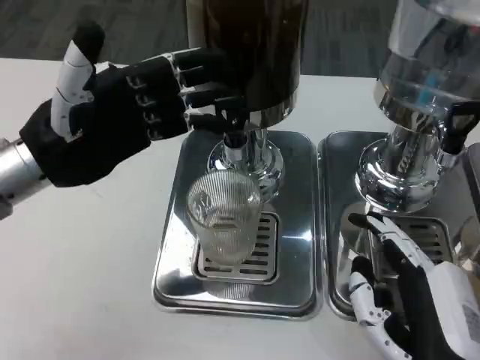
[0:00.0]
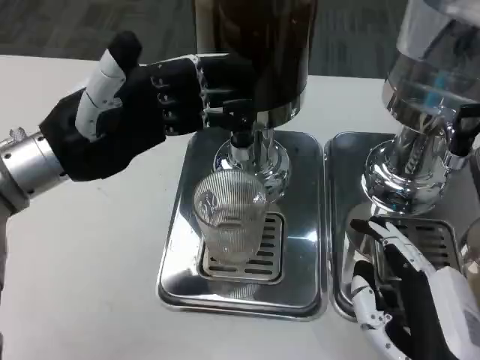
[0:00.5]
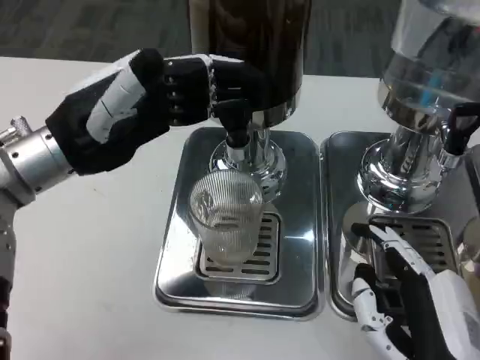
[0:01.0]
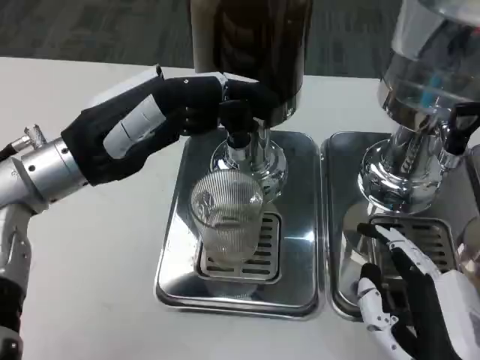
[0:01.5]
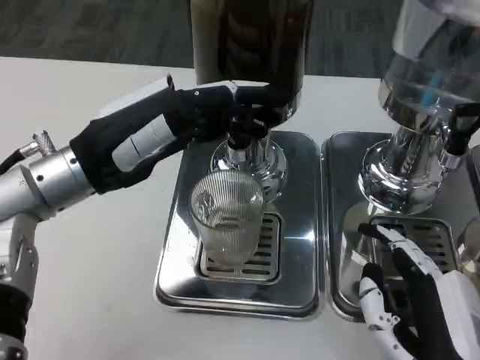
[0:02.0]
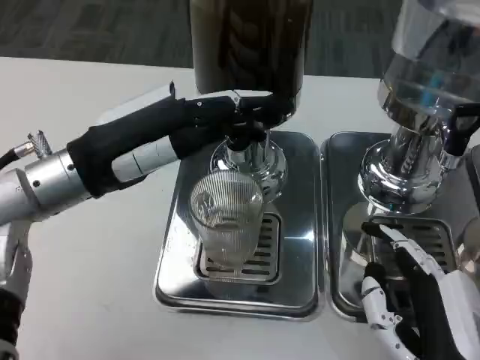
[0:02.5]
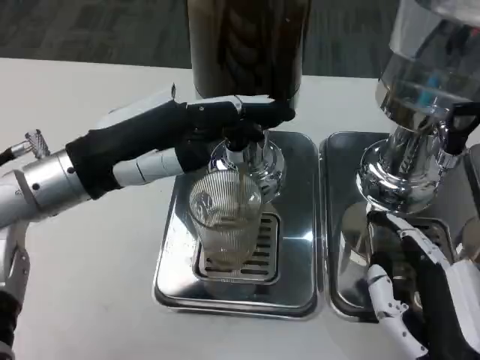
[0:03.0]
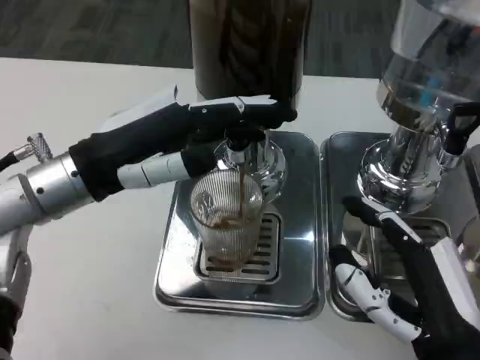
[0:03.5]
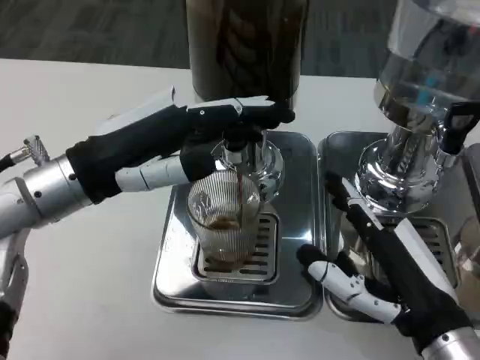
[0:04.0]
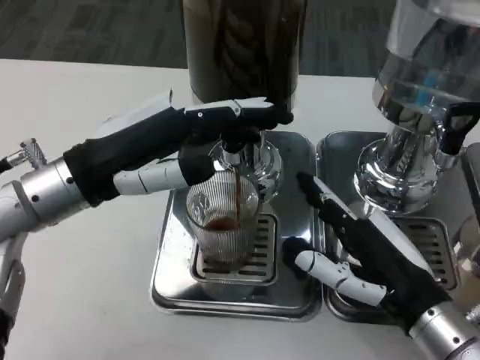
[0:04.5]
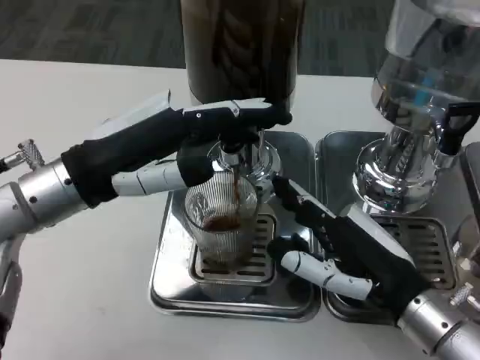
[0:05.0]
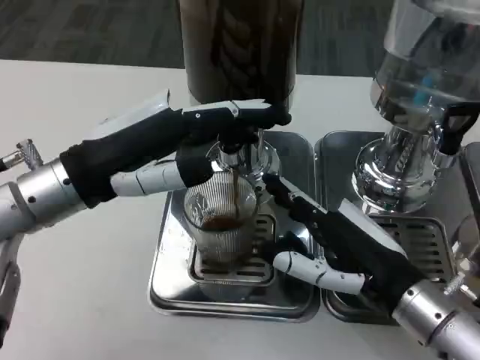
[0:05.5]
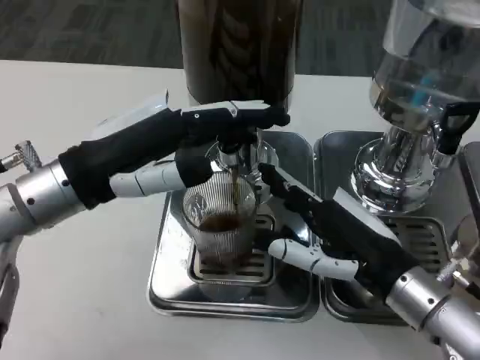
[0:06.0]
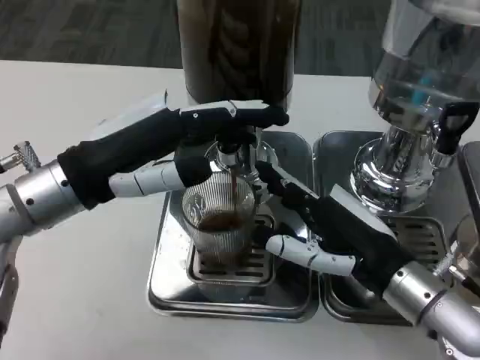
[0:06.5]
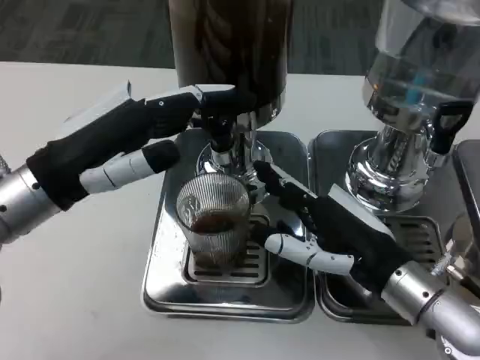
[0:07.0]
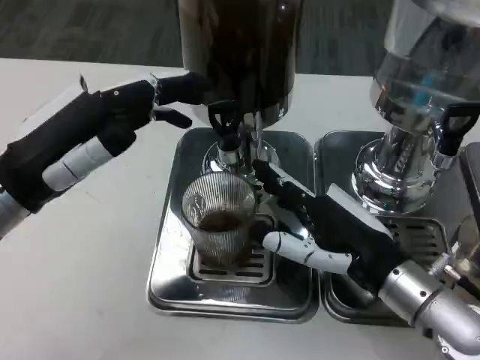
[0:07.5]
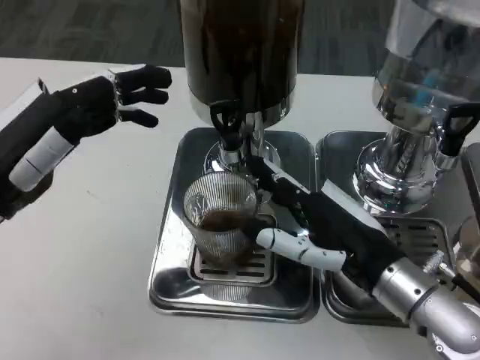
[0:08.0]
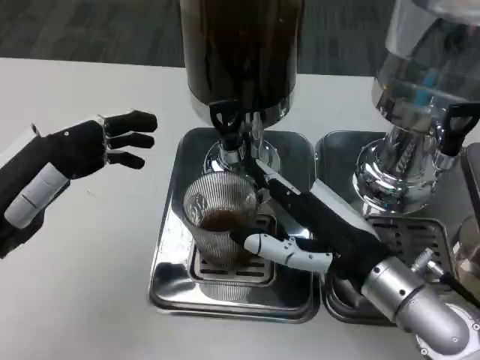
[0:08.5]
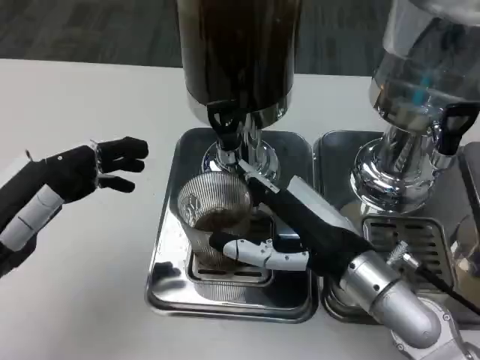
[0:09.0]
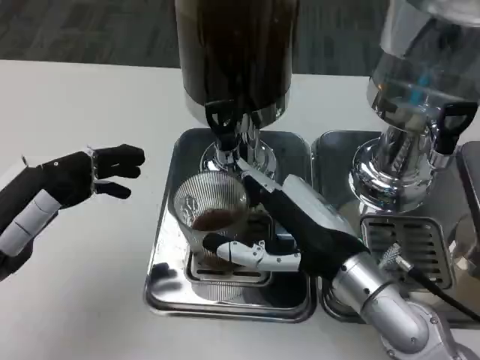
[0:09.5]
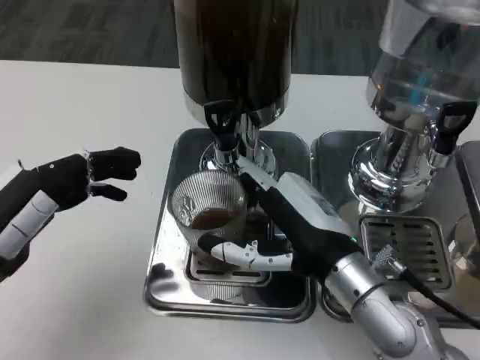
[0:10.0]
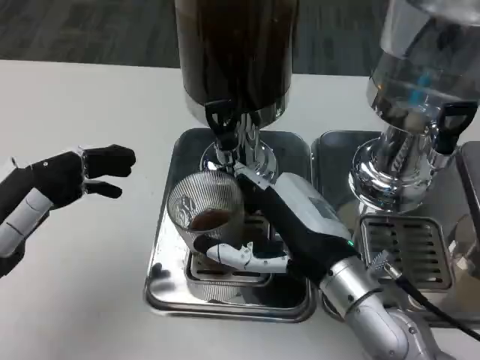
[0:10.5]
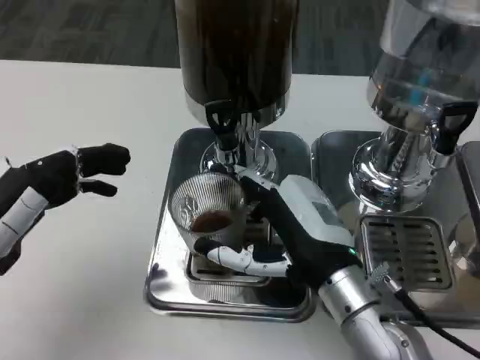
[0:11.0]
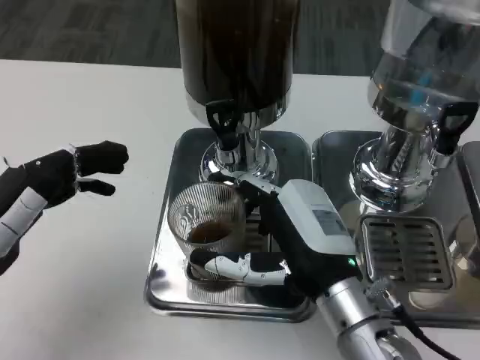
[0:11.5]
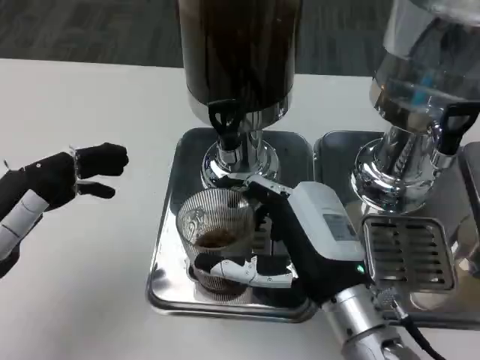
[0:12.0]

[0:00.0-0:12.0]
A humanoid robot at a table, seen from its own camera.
Task of the whole recording: Grasp the cup under the faucet to collect the drink, then remove the cup.
0:02.0 to 0:04.0: The right hand travels forward by about 5 cm.
0:04.0 to 0:06.0: The right hand moves forward, roughly 5 cm.
0:06.0 to 0:08.0: The left hand heads to the left, covering about 5 cm.
0:08.0 to 0:10.0: The left hand changes place by approximately 5 cm; the right hand goes roughly 5 cm to the left.

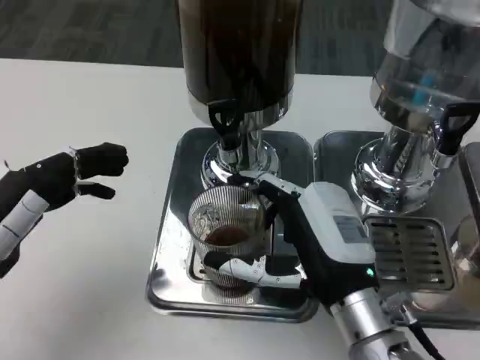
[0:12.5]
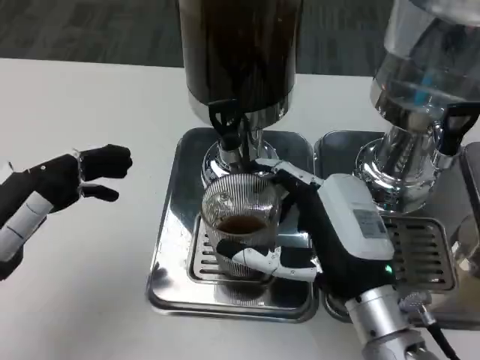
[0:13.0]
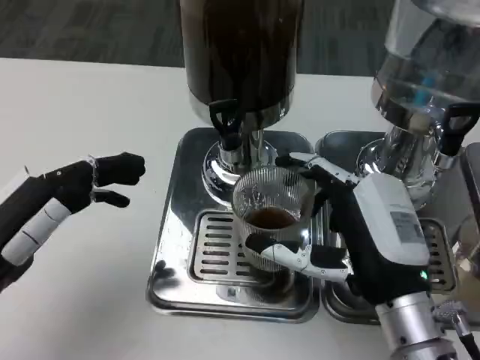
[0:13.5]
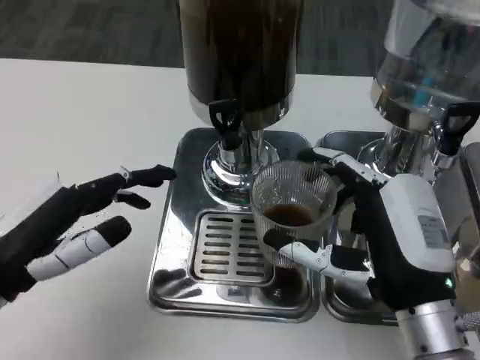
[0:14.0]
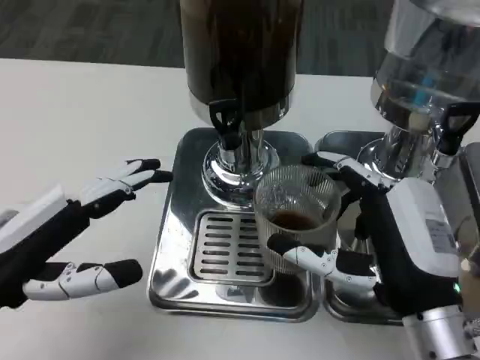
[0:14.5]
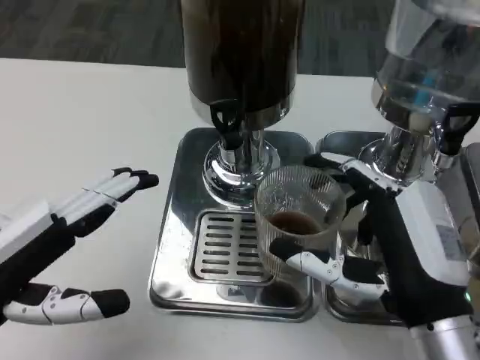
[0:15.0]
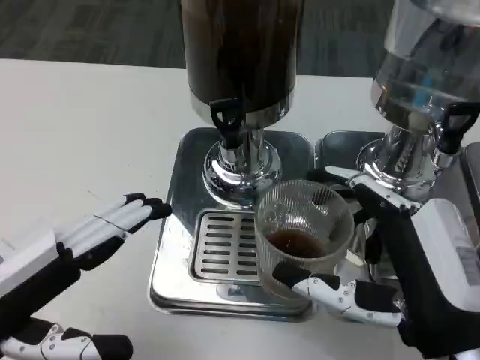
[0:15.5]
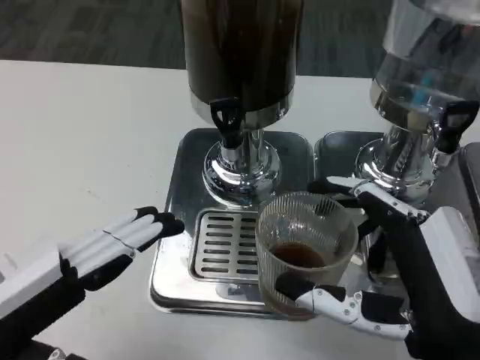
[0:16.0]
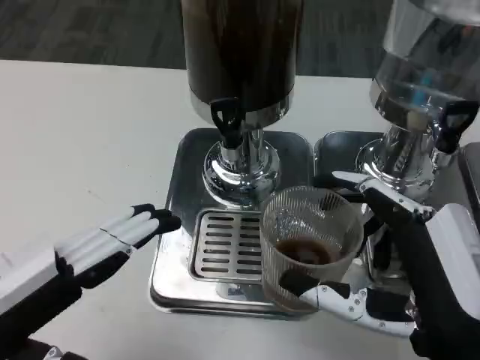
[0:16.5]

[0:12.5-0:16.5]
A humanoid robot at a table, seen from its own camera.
Task of the whole recording: Grasp the cup under the faucet to collect the drink, then remove the cup.
0:12.5 to 0:14.5: The right hand shifts by some 5 cm.
0:14.5 to 0:16.5: Both hands travel together backward, about 5 cm.

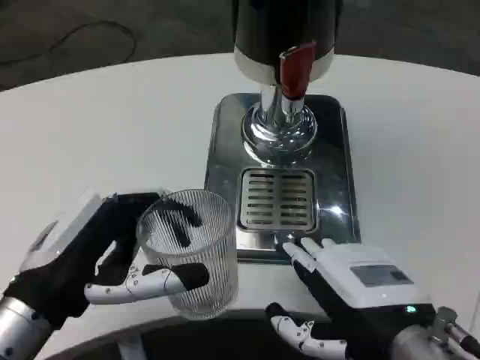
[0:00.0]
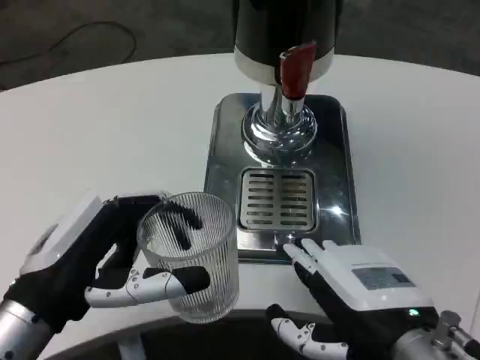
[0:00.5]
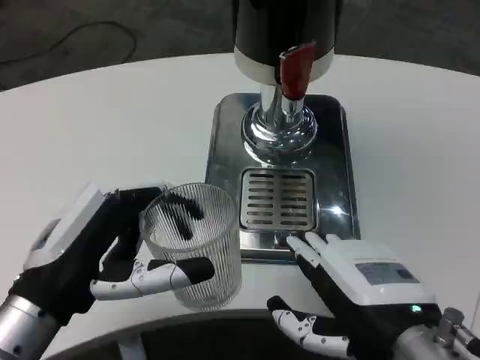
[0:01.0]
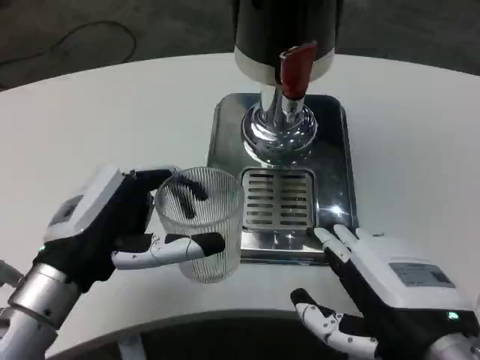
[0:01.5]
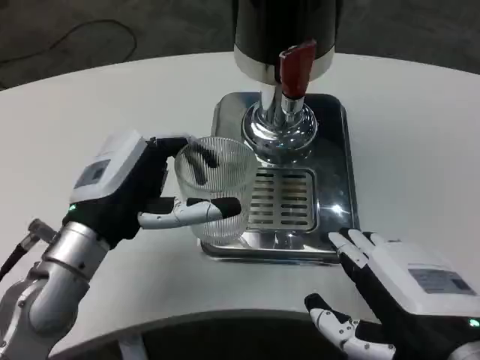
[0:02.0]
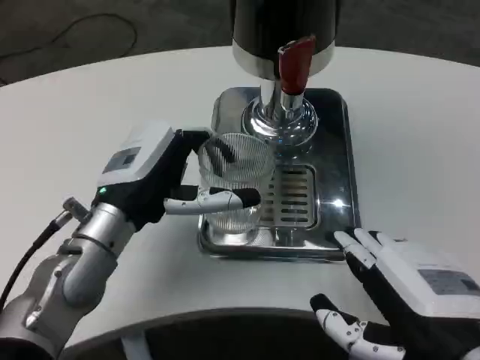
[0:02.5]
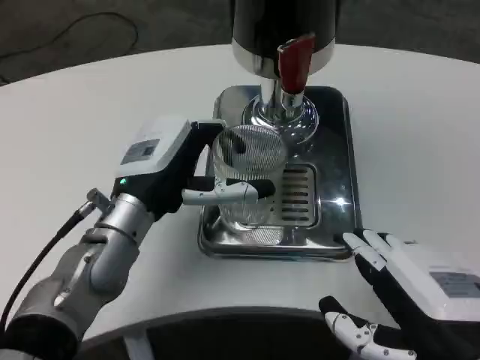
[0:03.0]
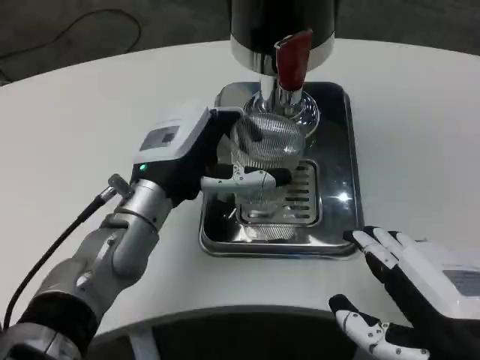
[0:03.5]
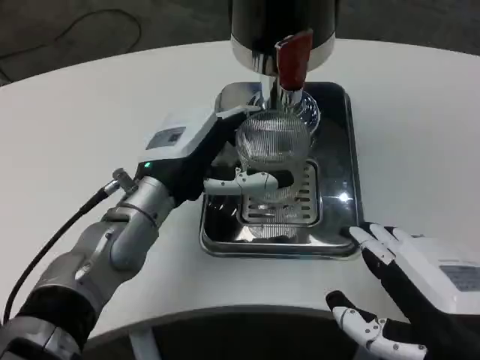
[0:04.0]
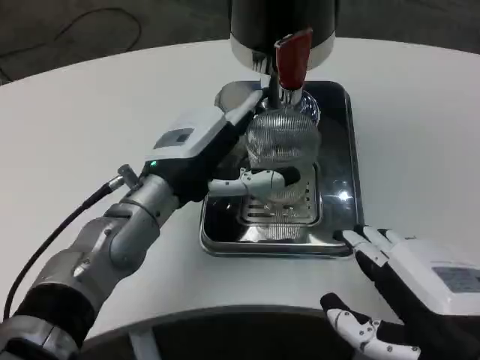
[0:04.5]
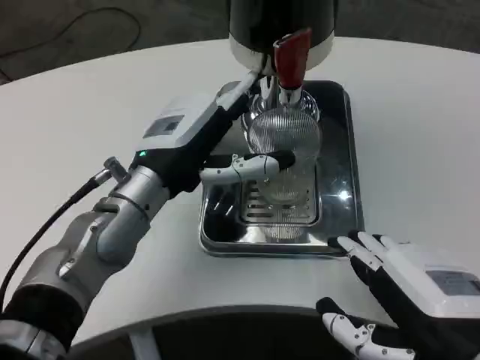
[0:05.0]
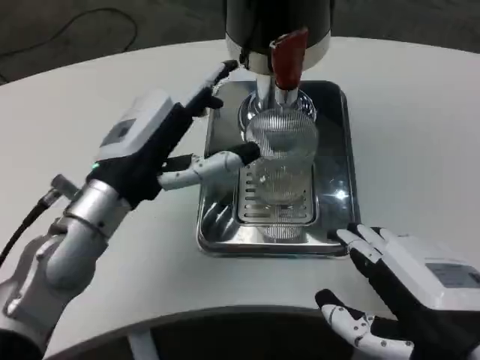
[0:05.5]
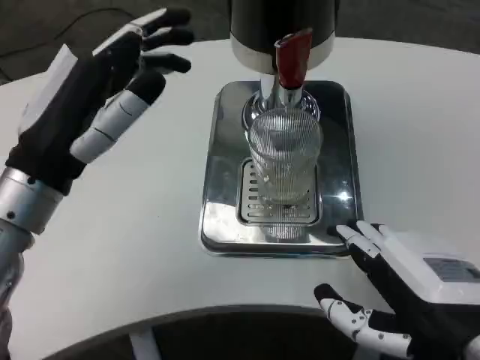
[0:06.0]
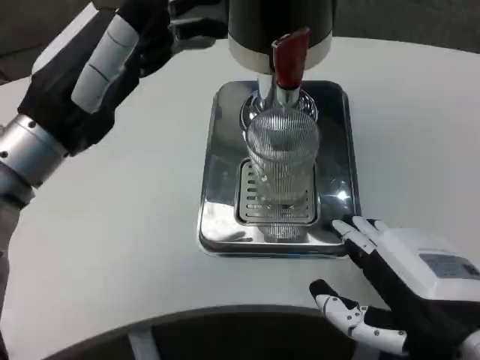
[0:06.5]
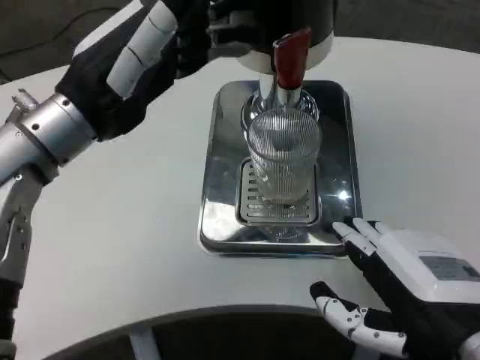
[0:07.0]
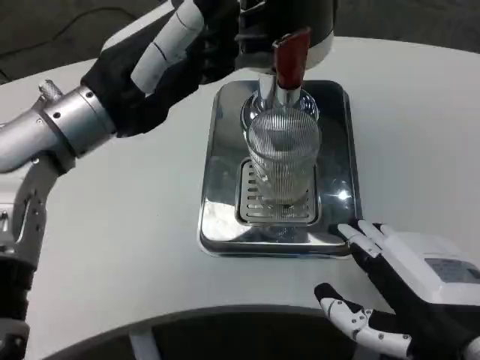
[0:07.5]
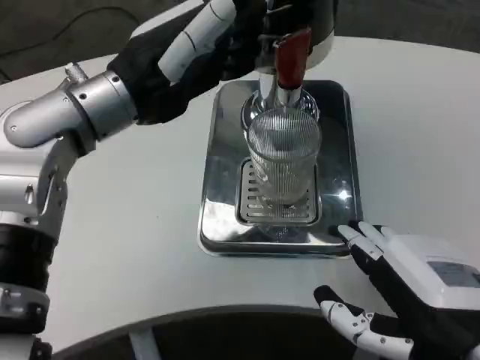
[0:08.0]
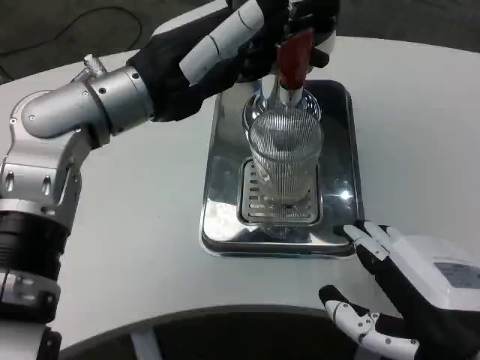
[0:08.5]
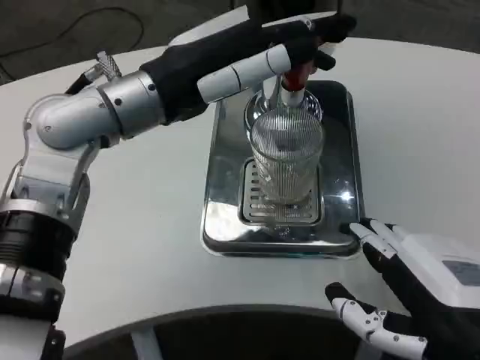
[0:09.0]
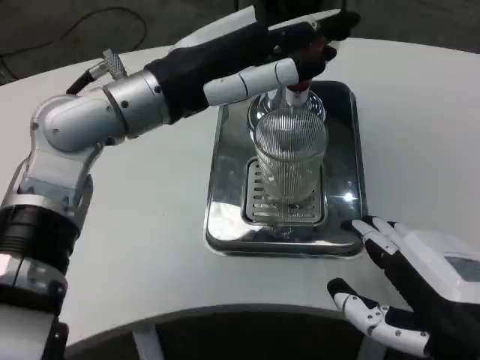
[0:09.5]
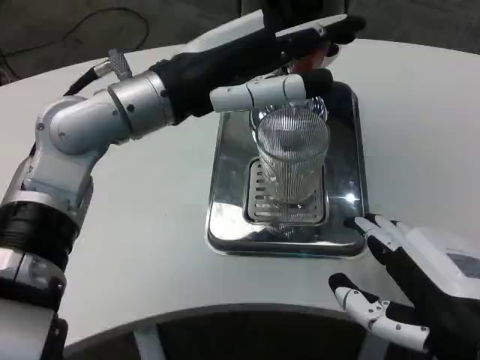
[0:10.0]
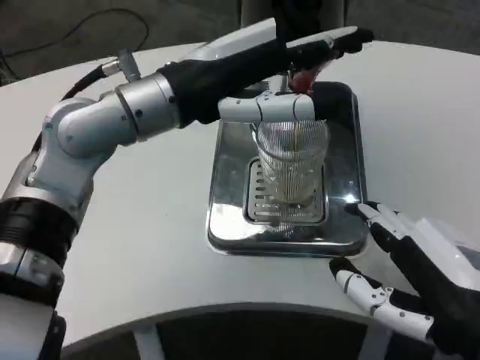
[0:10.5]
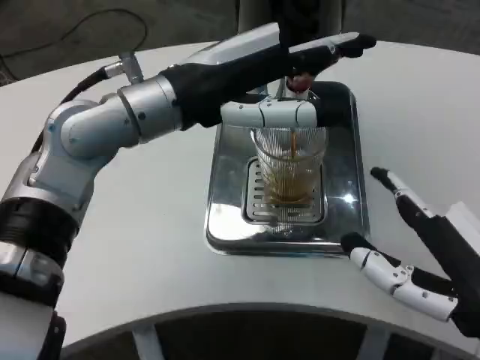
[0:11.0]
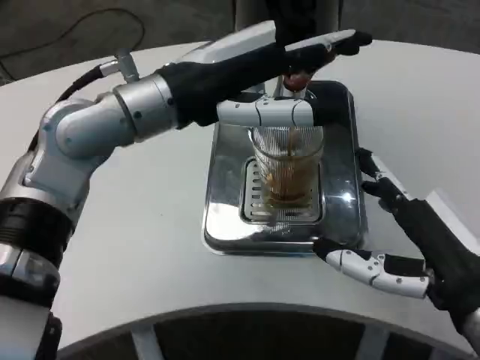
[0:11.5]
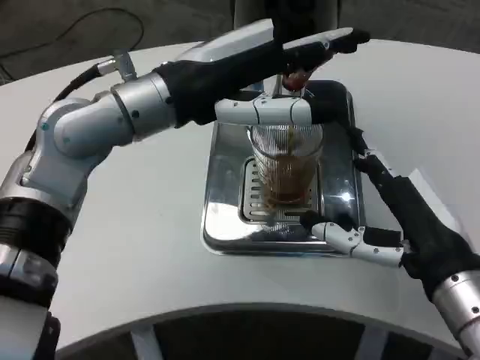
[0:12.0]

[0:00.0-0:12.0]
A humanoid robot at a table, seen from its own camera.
Task of the whole recording: Grasp the cup under the faucet to collect the drink, then remove the cup.
0:00.0 to 0:02.0: The left hand travels forward by approximately 10 cm.
0:02.0 to 0:04.0: The left hand shifts approximately 10 cm forward and to the right.
0:04.0 to 0:06.0: The left hand moves to the left and backward, about 10 cm.
0:06.0 to 0:08.0: The left hand is displaced upward and forward by approximately 10 cm.
0:10.0 to 0:12.0: The right hand goes approximately 10 cm forward.
